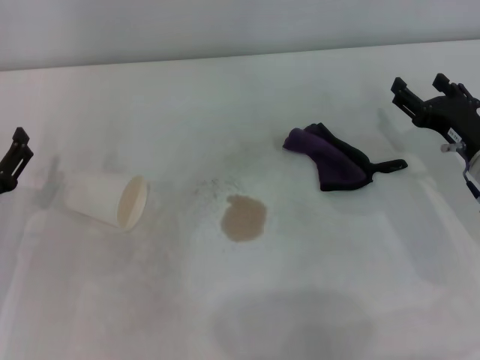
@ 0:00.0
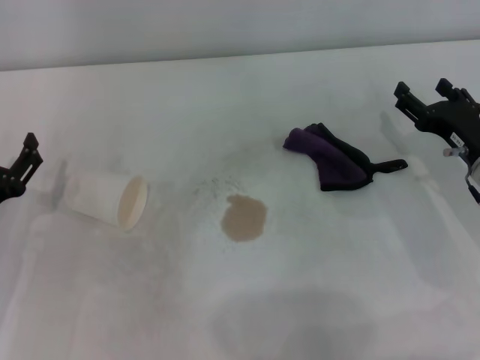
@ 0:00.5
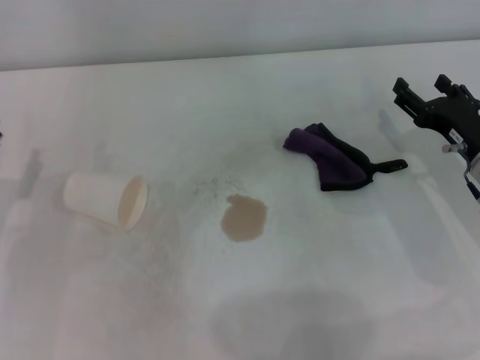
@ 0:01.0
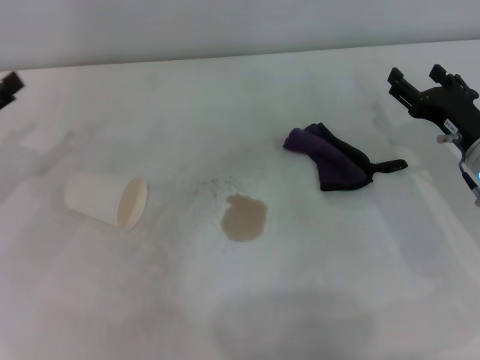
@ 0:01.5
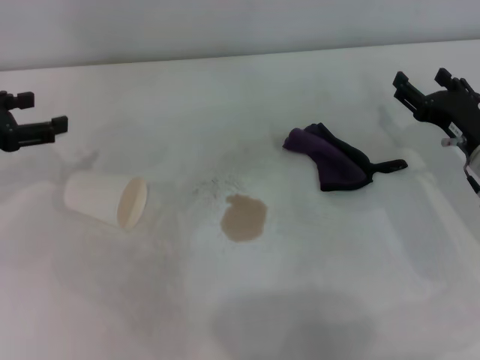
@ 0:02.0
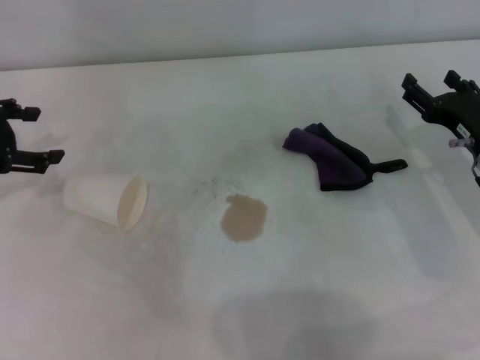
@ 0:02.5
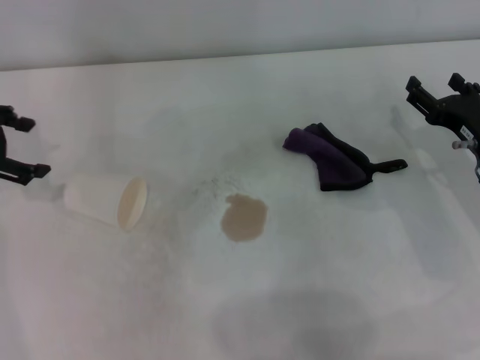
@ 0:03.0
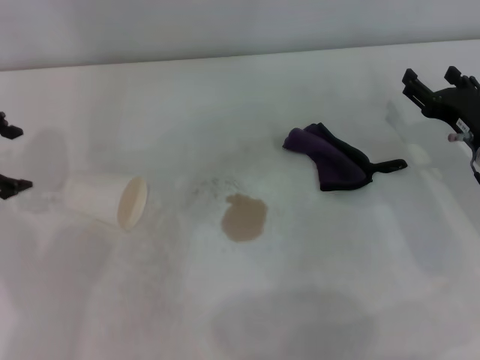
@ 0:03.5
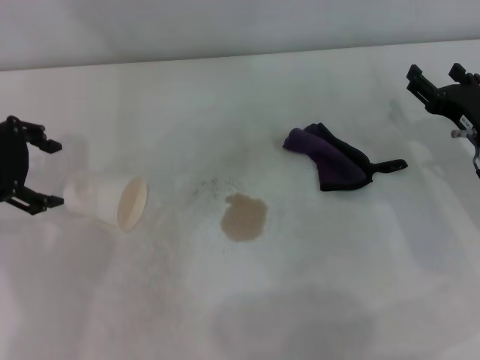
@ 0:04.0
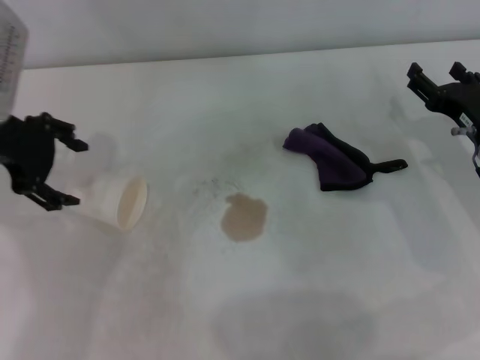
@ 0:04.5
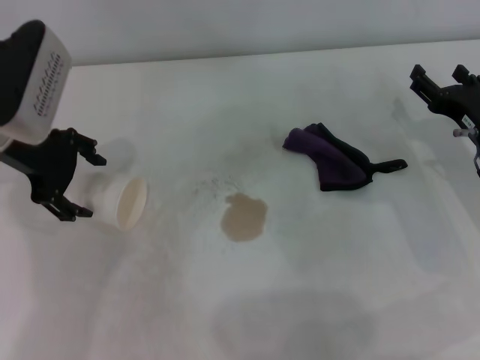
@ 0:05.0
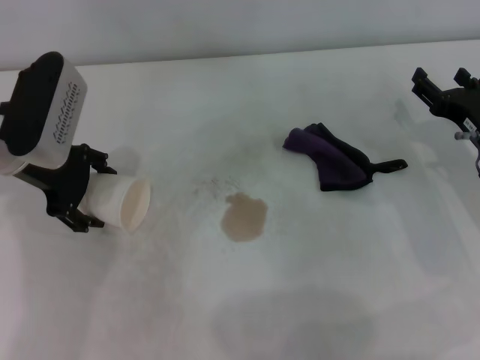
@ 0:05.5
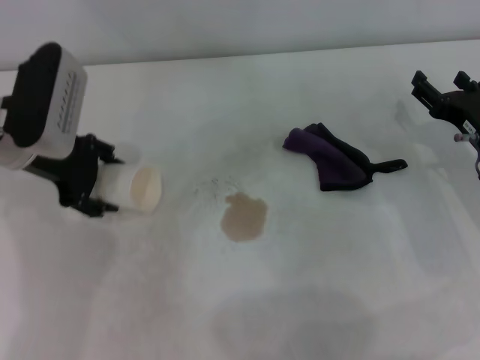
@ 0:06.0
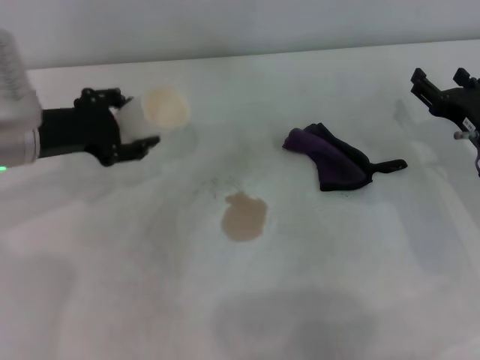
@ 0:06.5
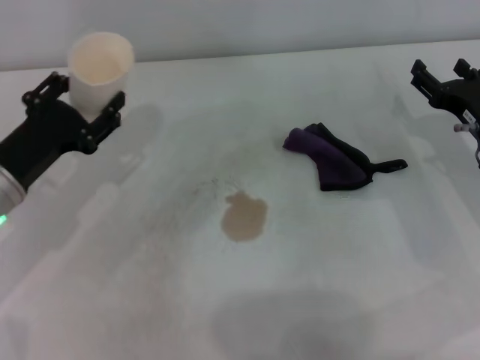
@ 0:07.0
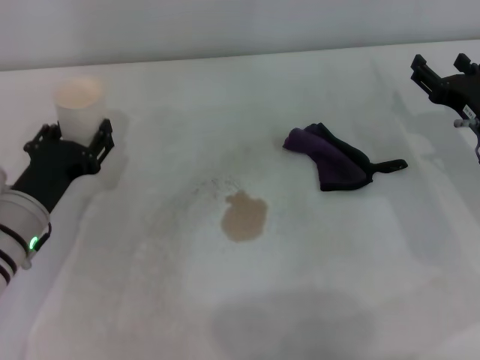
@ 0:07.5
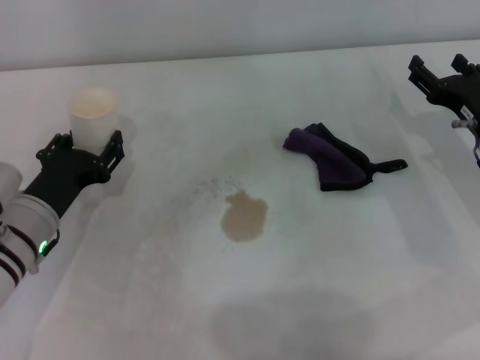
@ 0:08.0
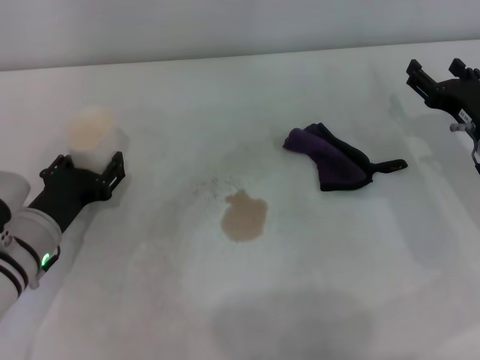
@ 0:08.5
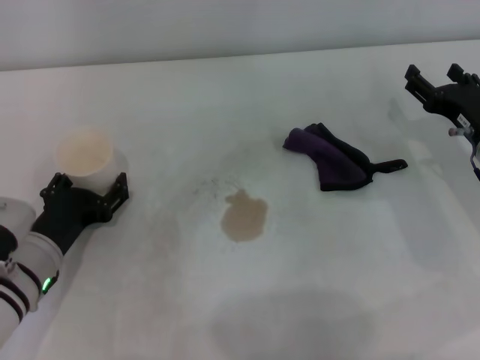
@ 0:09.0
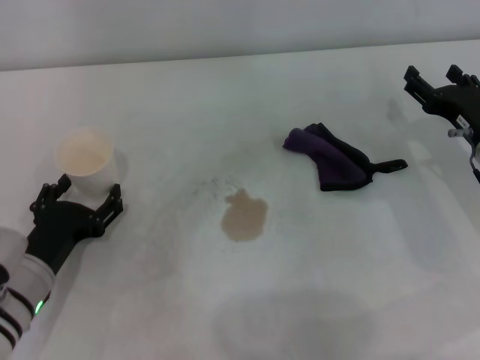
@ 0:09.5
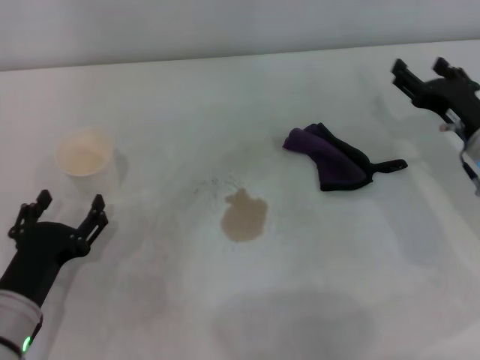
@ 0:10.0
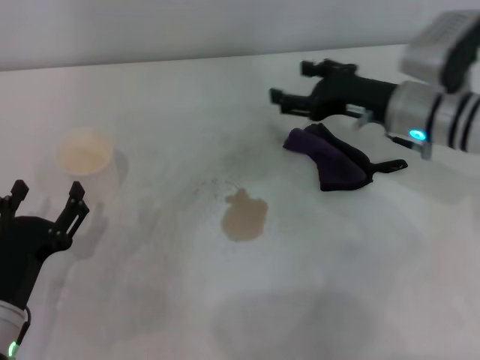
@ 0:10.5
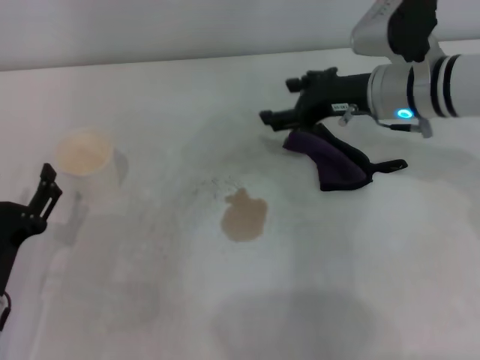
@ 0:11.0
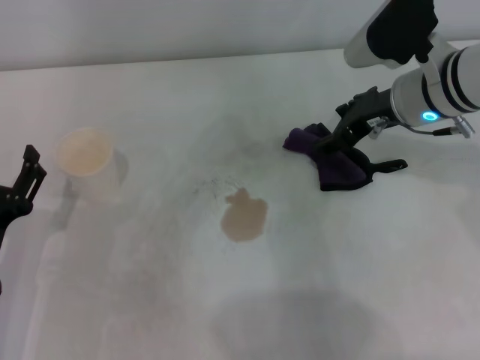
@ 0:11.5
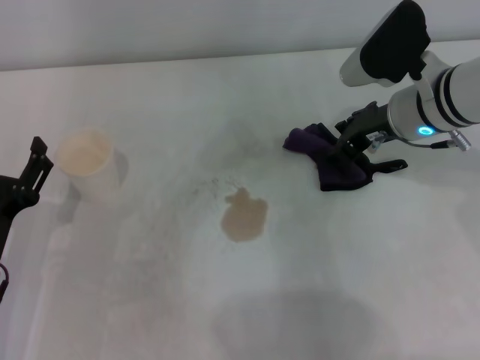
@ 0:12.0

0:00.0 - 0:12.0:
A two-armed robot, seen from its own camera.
Step, 0:00.0 - 0:05.5: Grasp the paper cup with the left gripper.
Step, 0:06.0 - 0:08.5: Stand the paper cup upright with the left gripper.
0:00.0 - 0:02.0: The left gripper is displaced forward, upward and to the left by roughly 15 cm.
0:02.0 - 0:04.0: The left gripper shifts about 10 cm upward and to the right.
0:04.0 - 0:06.0: The left gripper moves to the right, about 5 cm, and closes its fingers.
0:06.0 - 0:08.0: The left gripper goes roughly 15 cm downward and backward, and closes up.
0:08.0 - 0:10.0: The left gripper moves backward, about 10 cm, and opens.
0:10.0 - 0:12.0: The right gripper is displaced to the left, upward and forward by about 15 cm.

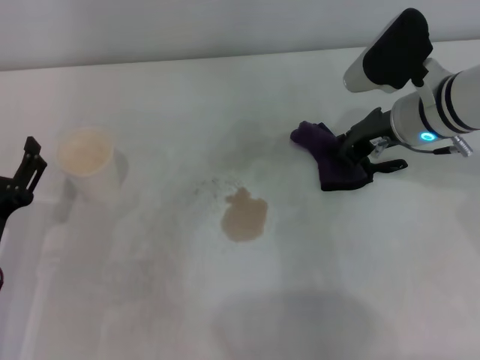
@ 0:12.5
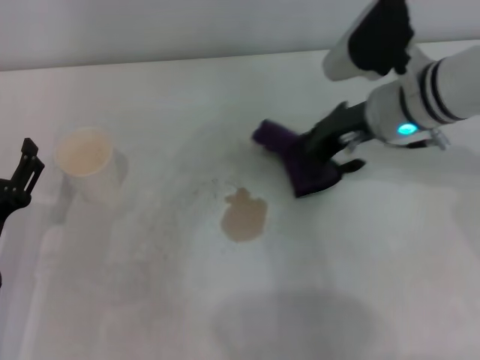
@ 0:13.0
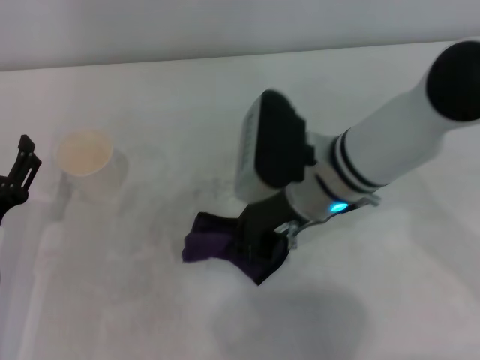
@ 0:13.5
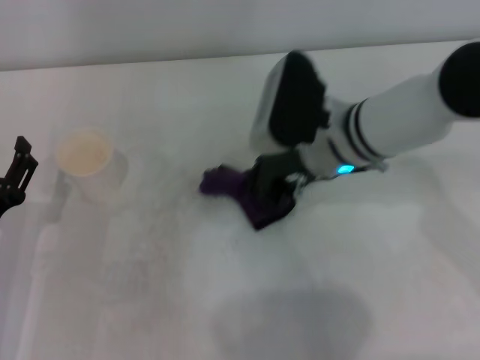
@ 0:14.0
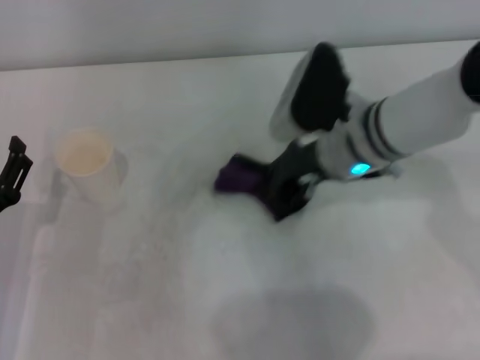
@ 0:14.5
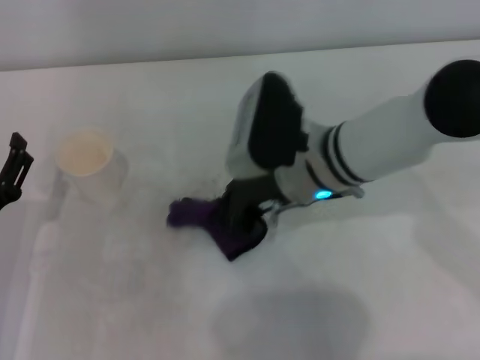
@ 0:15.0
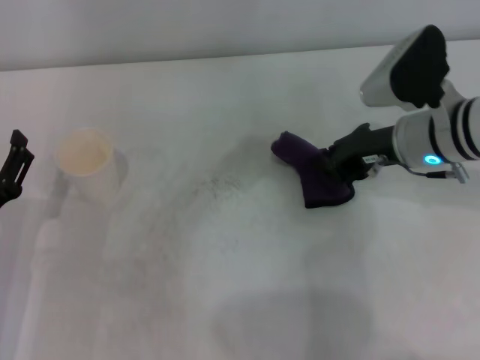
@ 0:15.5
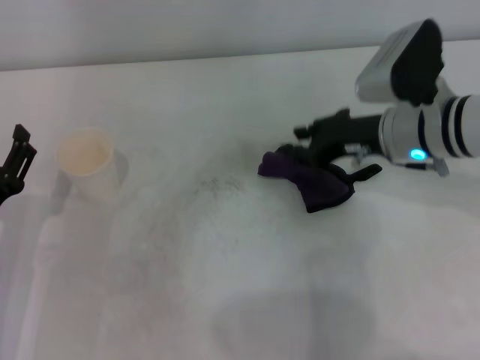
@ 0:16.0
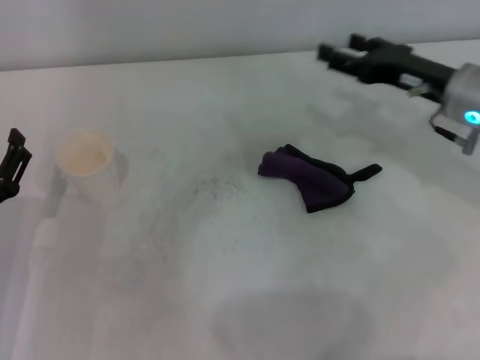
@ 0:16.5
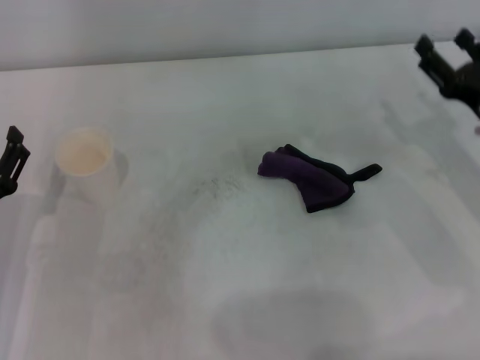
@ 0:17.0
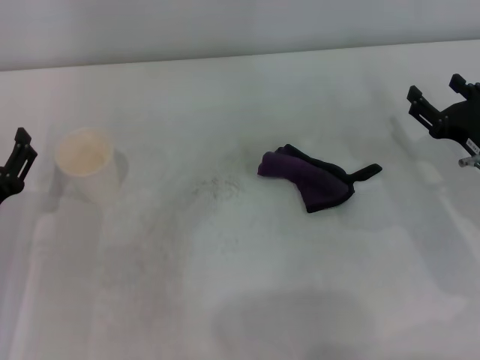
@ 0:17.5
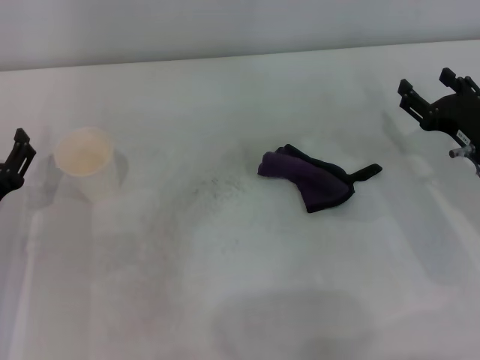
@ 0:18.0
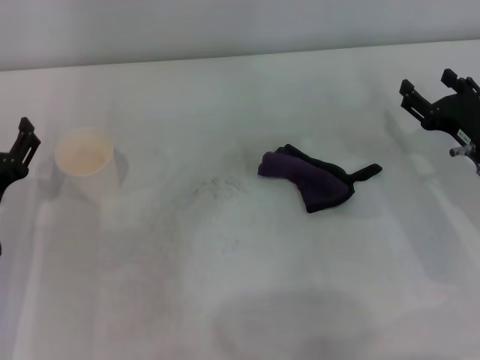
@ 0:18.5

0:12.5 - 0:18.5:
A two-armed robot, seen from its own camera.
Step, 0:13.0 - 0:14.5: Wipe the stains off the table with the right gripper.
Step, 0:15.0 - 0:15.5: Place the rag on the table with the right gripper.
0:12.5 - 0:14.5: The right gripper heads to the left, covering about 10 cm.
0:14.5 - 0:16.5: The right gripper moves to the right, about 15 cm, and opens.
0:16.5 - 0:18.5: The right gripper is displaced downward by about 5 cm.

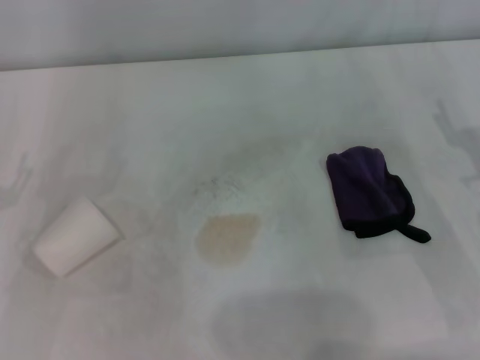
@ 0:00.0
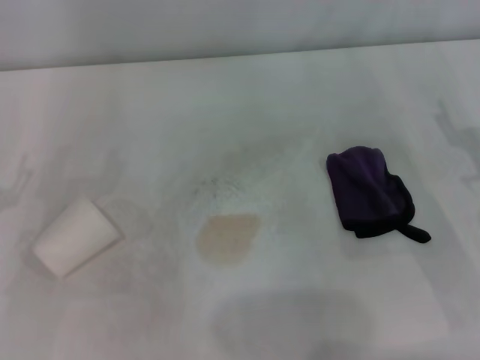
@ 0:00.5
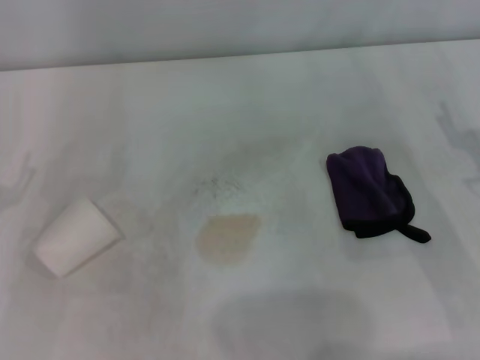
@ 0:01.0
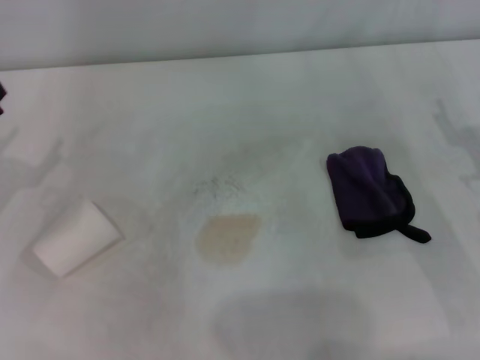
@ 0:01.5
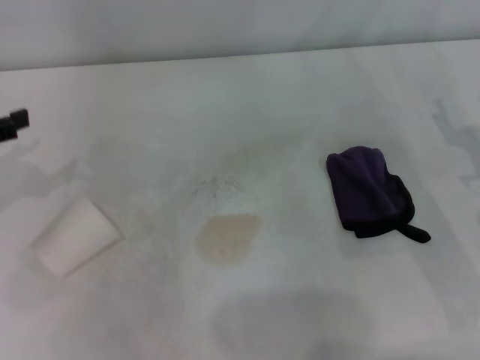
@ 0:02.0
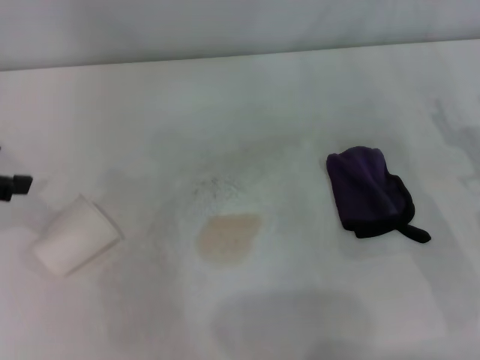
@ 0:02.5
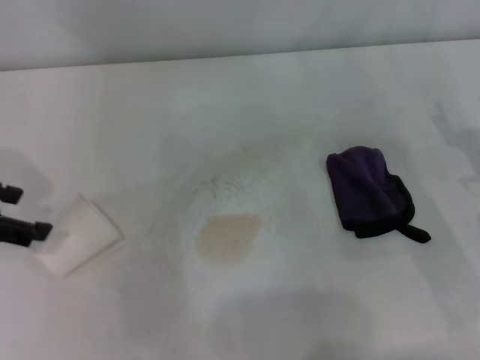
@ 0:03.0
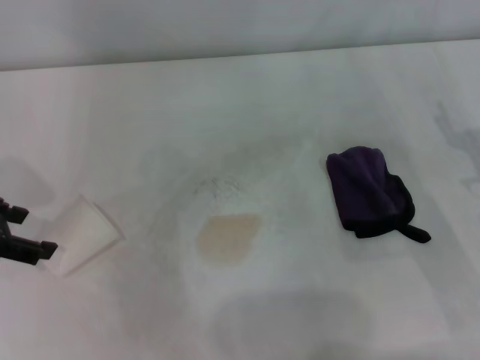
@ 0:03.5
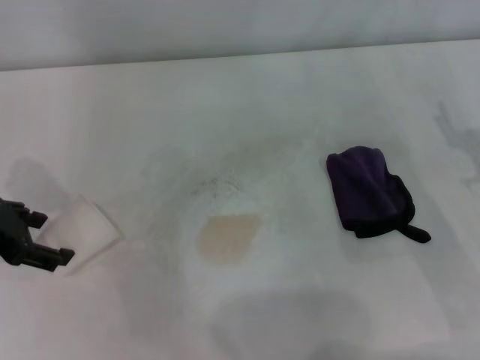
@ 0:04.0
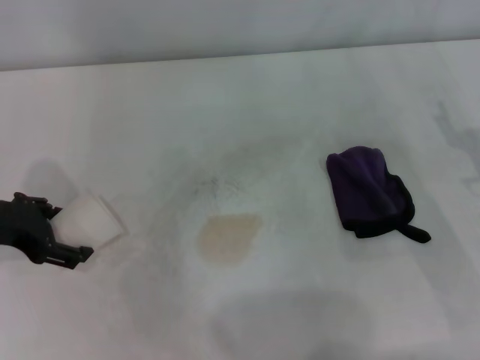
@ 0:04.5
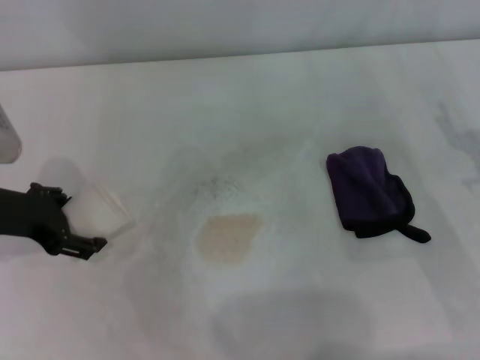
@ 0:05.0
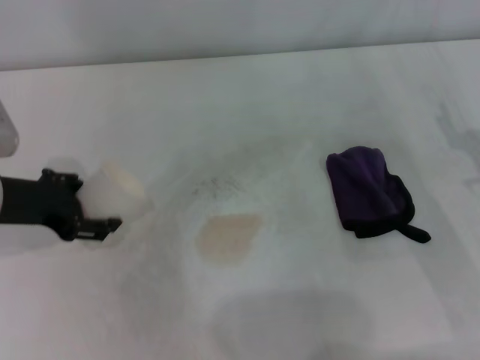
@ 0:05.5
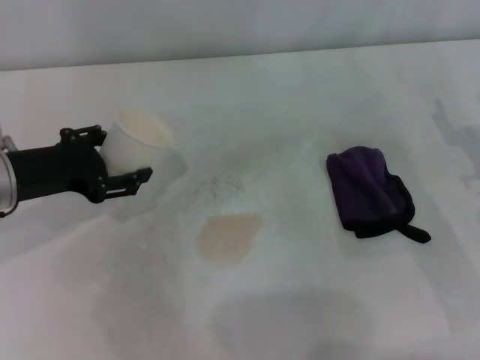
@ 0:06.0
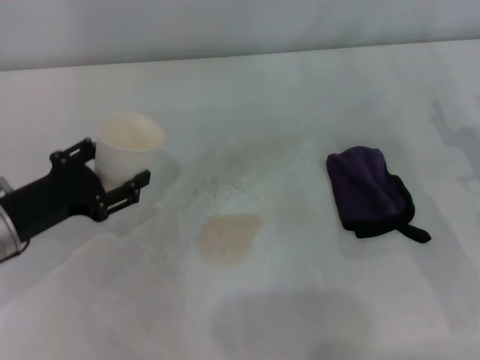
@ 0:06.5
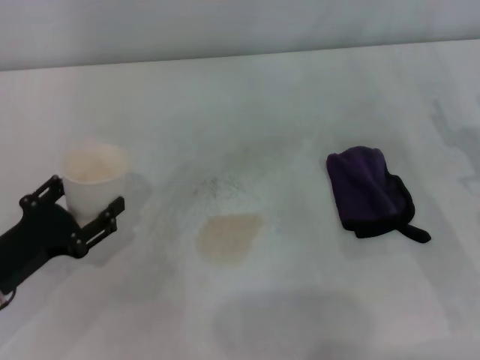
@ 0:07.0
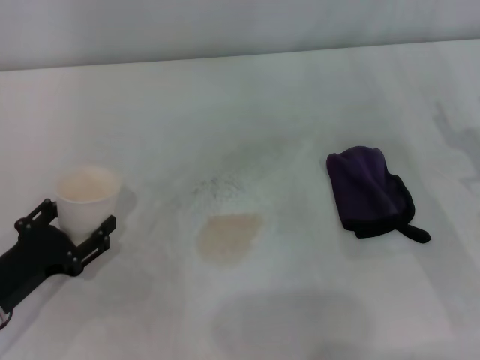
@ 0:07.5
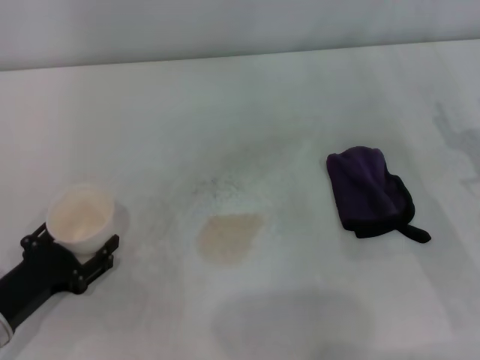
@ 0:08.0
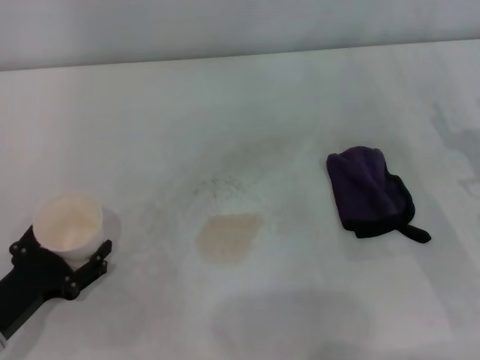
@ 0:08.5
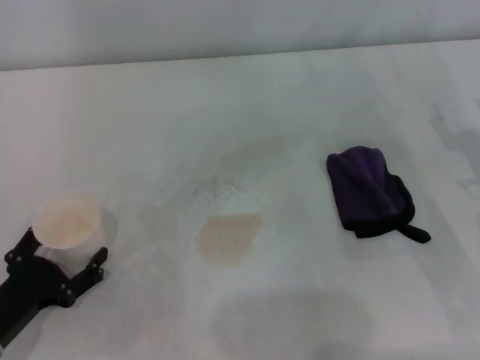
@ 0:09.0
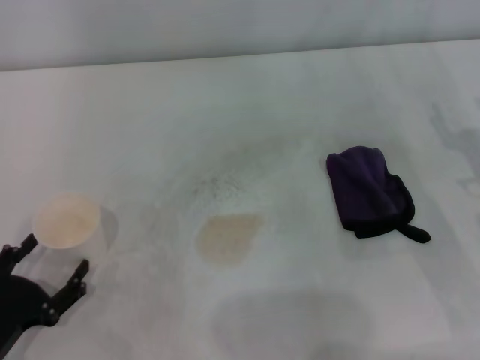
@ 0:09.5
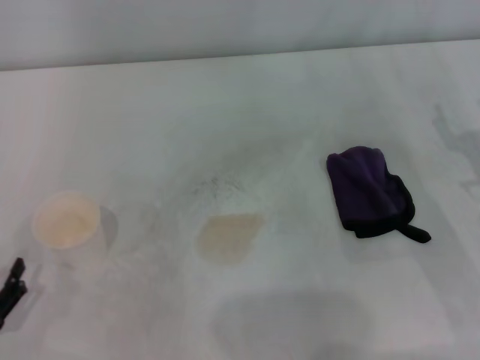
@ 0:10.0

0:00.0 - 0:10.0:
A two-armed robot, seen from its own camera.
Step, 0:00.0 - 0:05.0: Grasp the paper cup with the left gripper.
Step, 0:05.5 - 0:08.5: Stand the paper cup upright with the left gripper.
0:02.0 - 0:04.0: The left gripper goes approximately 5 cm to the right.
0:04.0 - 0:06.0: The left gripper shifts by roughly 5 cm, and closes up.
0:06.0 - 0:08.0: The left gripper travels downward and backward by about 15 cm.
0:08.0 - 0:10.0: The left gripper shifts roughly 10 cm backward, and opens.
